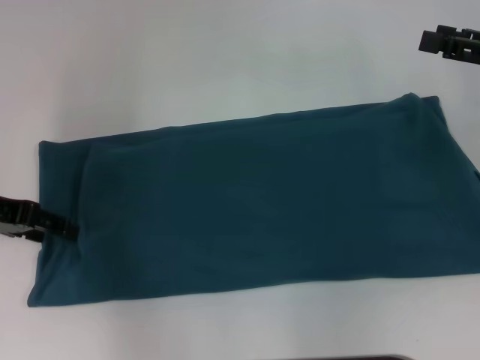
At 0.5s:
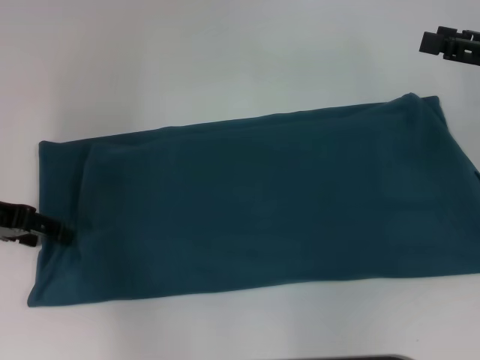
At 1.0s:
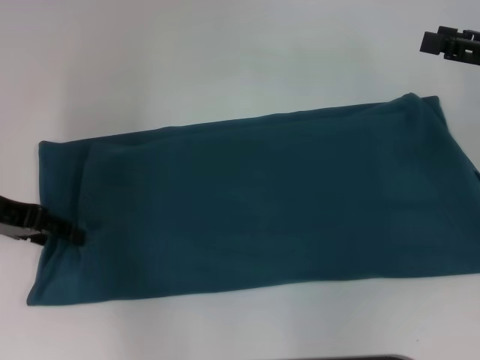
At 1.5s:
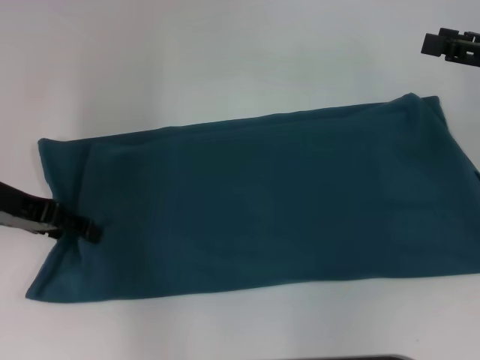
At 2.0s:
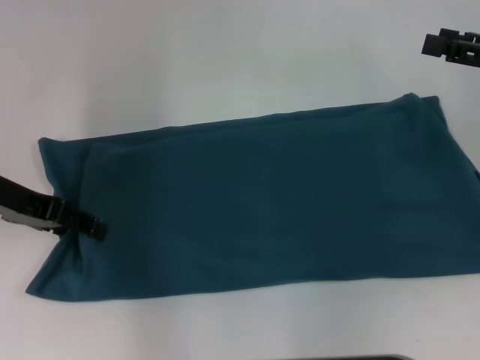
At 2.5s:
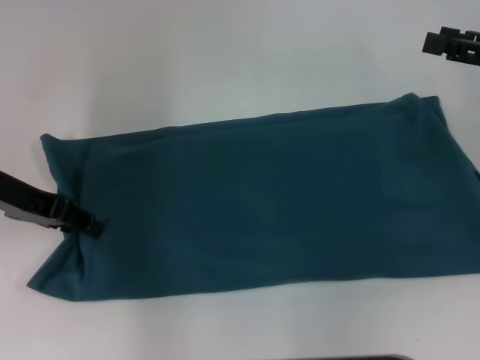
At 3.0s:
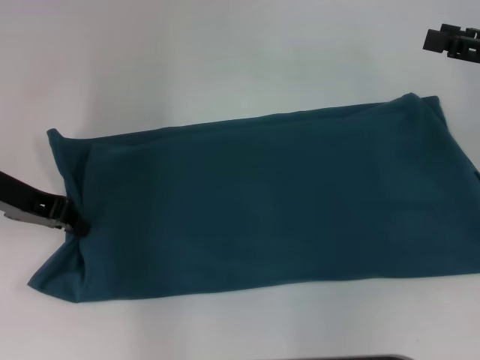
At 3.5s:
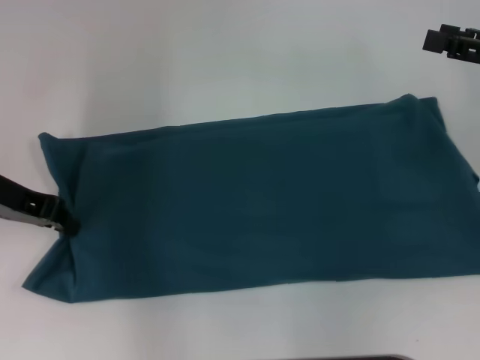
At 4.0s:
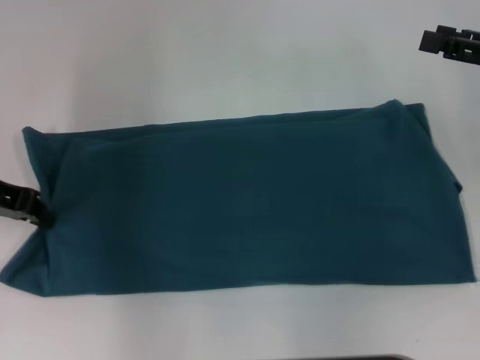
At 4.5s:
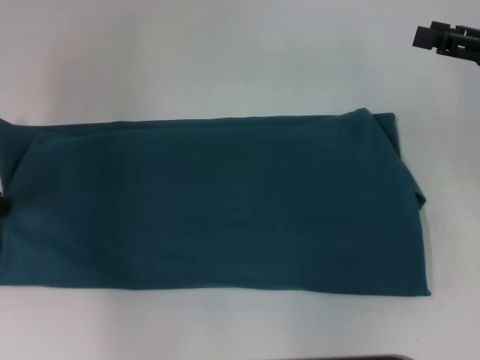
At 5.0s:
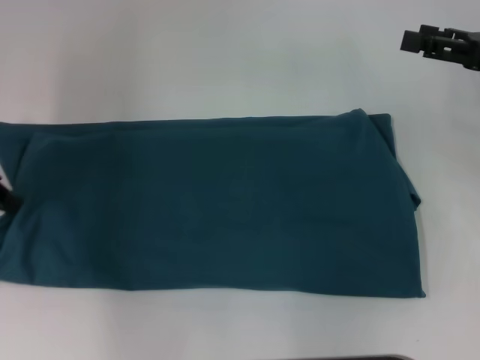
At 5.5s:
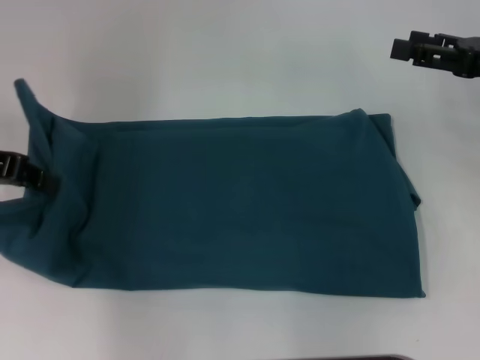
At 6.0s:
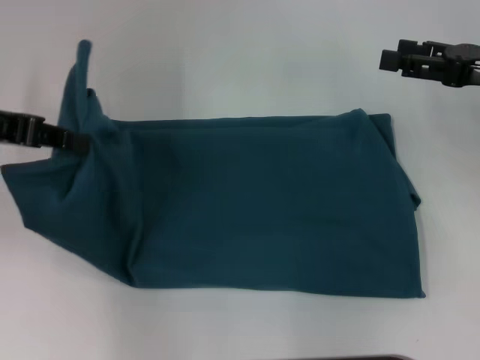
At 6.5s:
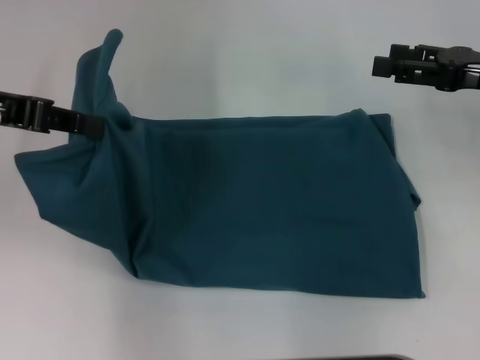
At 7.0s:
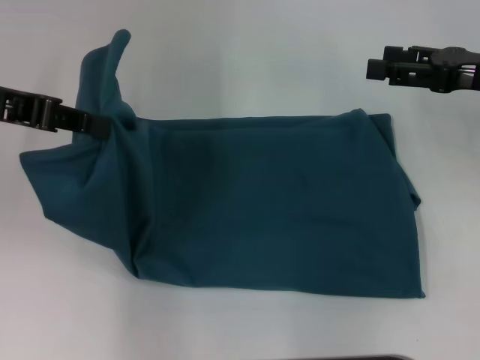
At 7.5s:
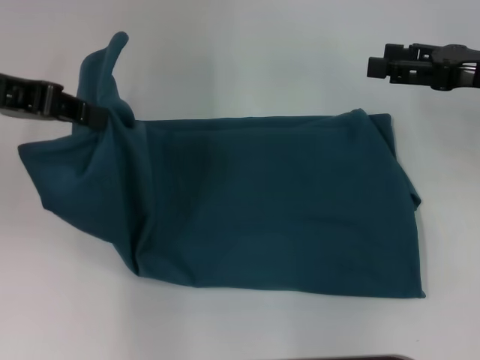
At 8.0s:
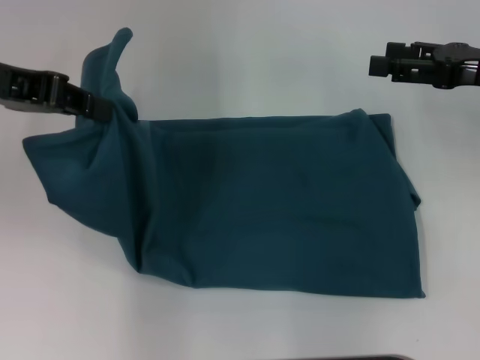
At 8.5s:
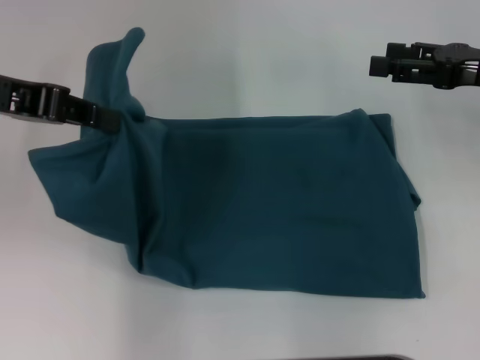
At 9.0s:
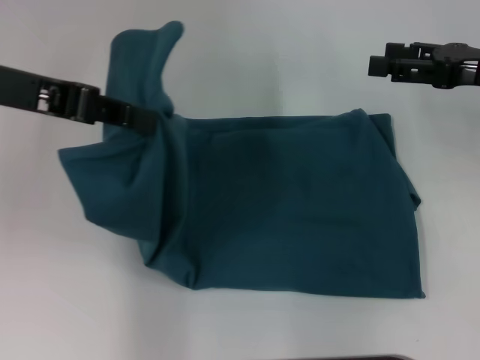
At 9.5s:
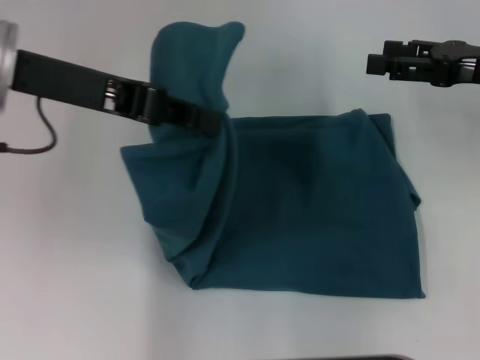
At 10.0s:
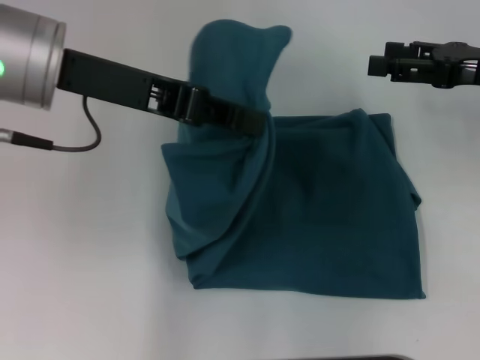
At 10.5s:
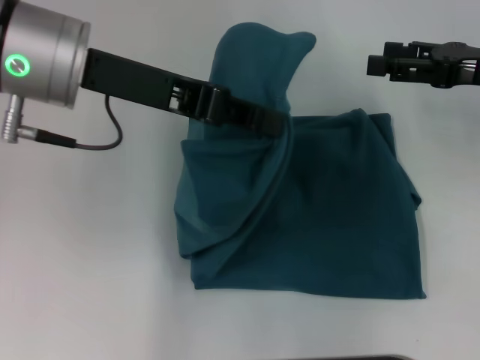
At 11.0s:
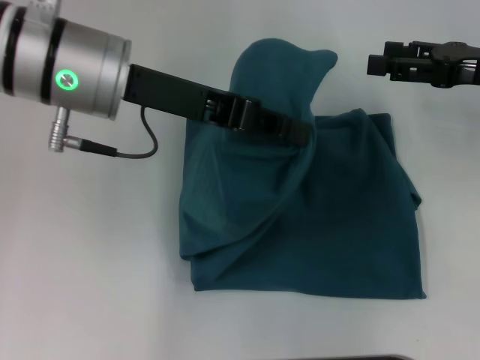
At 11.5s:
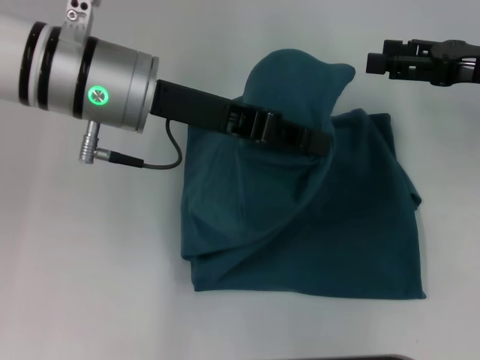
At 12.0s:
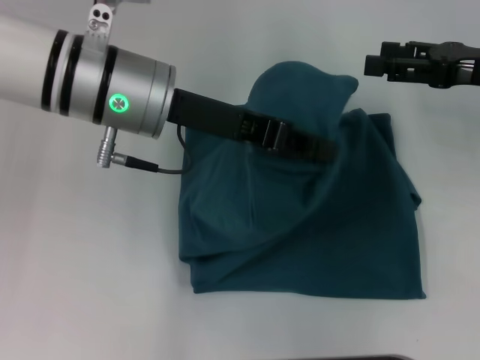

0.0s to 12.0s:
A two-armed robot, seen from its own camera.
0.0s to 2.0s: The grippers stay close to where they were, moving slightly.
2.0s to 4.0s: The left gripper closes its fingers.
4.0s to 6.0s: The left gripper goes approximately 5 cm upward.
6.0s to 8.0s: The grippers move only a little.
8.0s to 10.0s: The left gripper travels to the right by approximately 10 cm.
10.0s to 12.0s: The left gripper shifts roughly 10 cm to the right and downward.

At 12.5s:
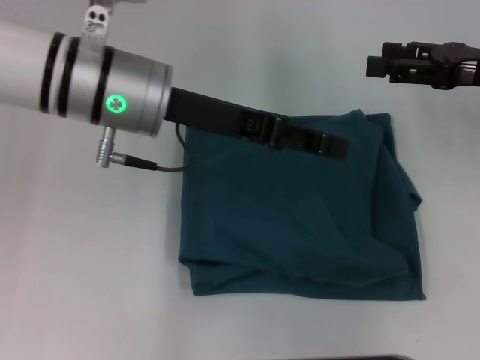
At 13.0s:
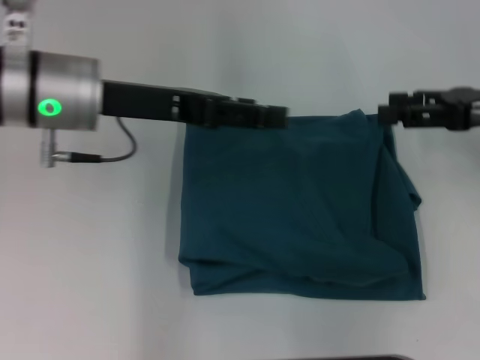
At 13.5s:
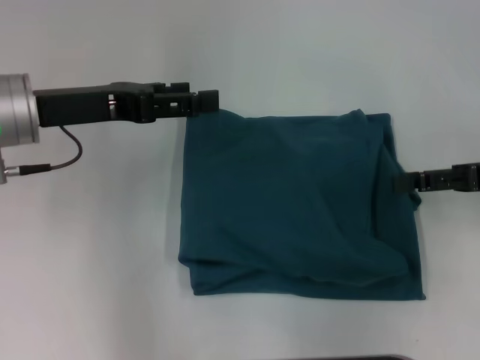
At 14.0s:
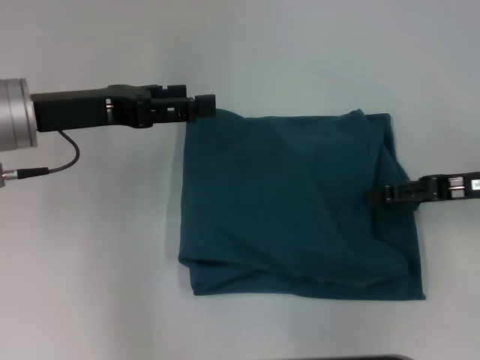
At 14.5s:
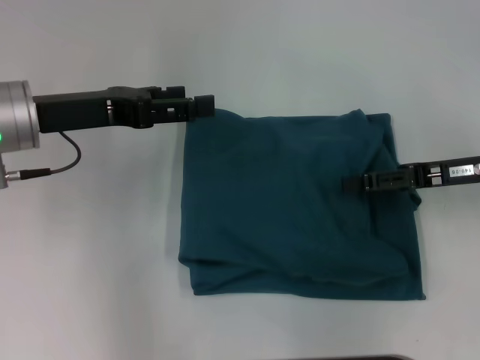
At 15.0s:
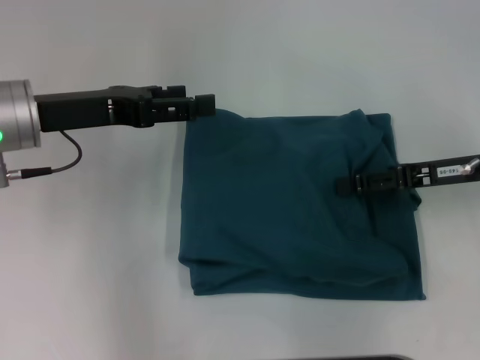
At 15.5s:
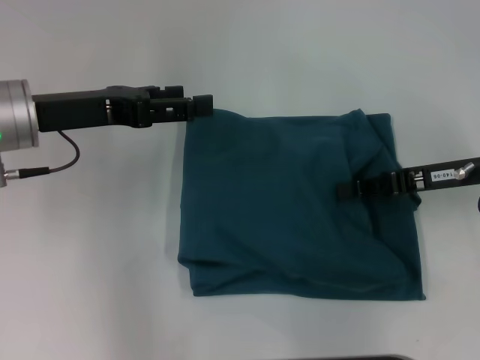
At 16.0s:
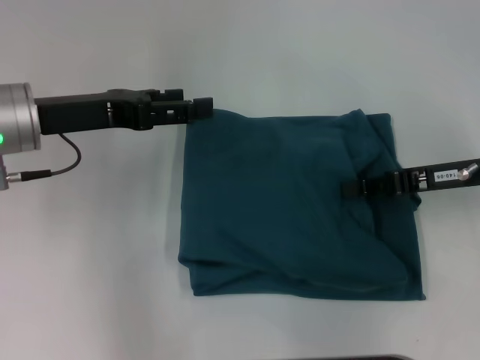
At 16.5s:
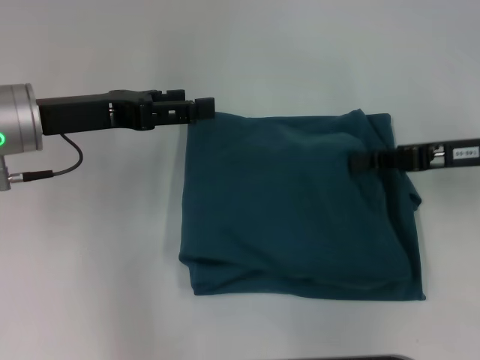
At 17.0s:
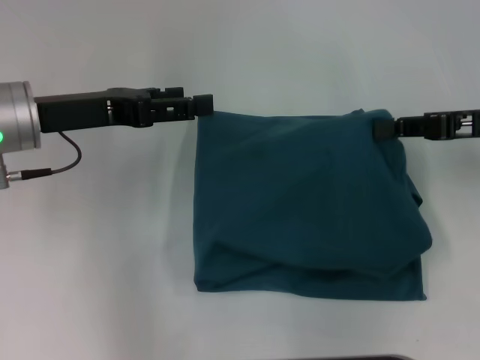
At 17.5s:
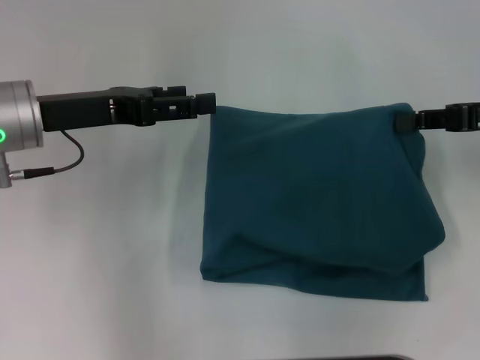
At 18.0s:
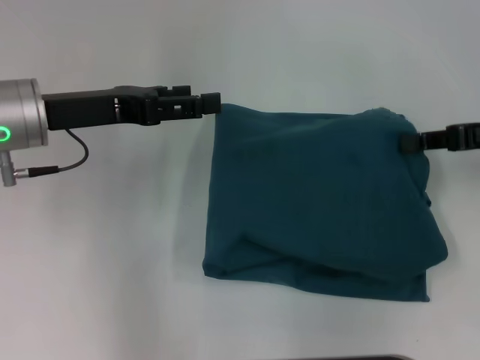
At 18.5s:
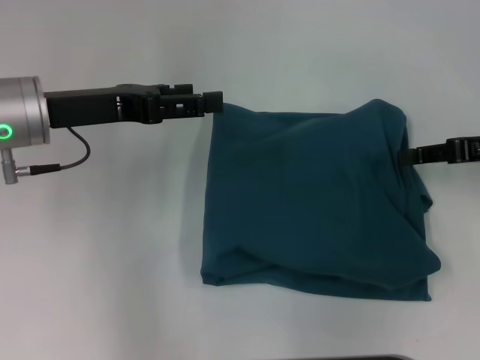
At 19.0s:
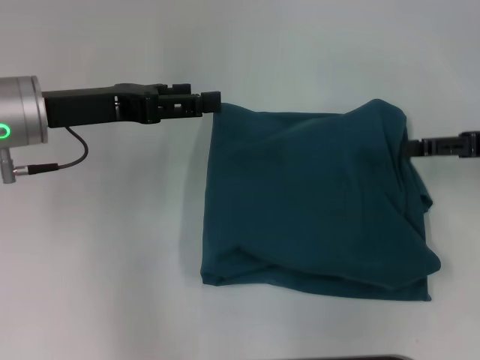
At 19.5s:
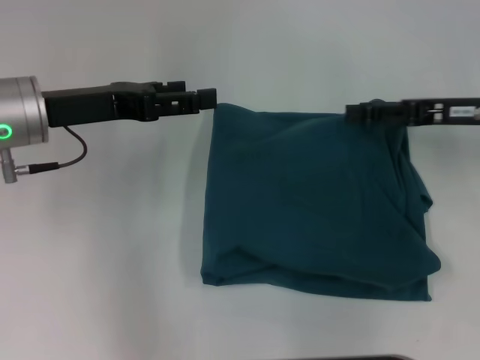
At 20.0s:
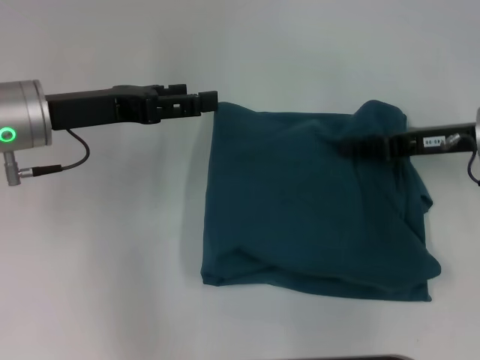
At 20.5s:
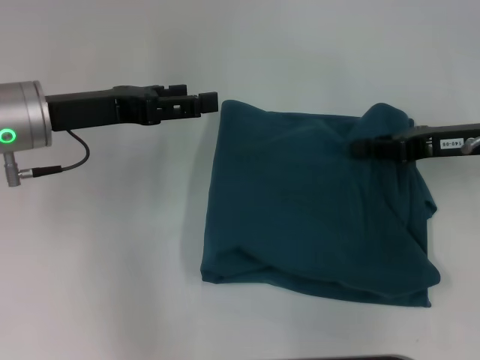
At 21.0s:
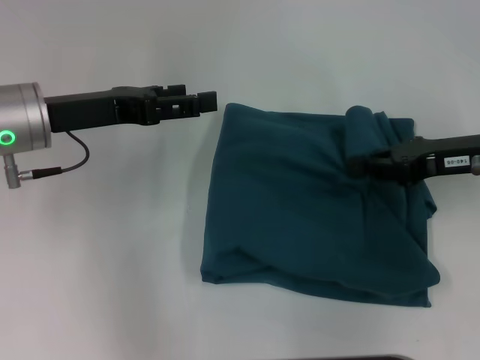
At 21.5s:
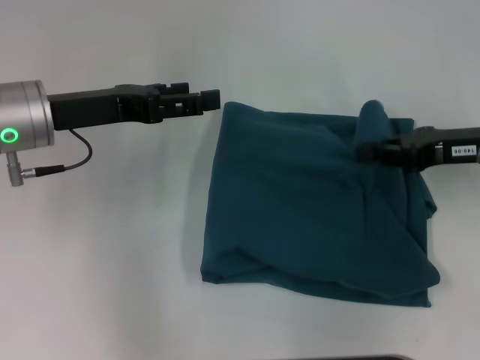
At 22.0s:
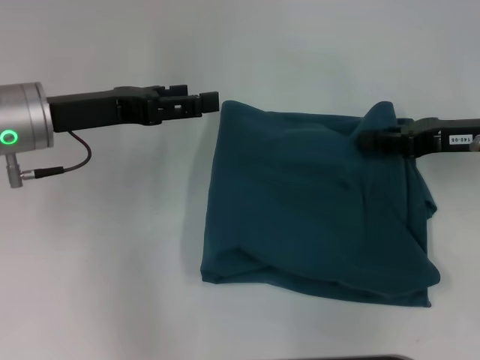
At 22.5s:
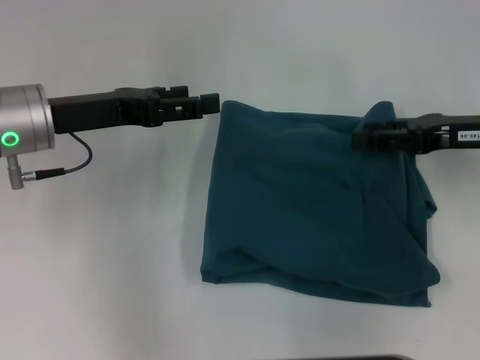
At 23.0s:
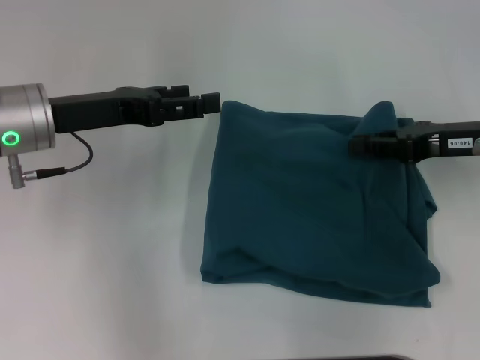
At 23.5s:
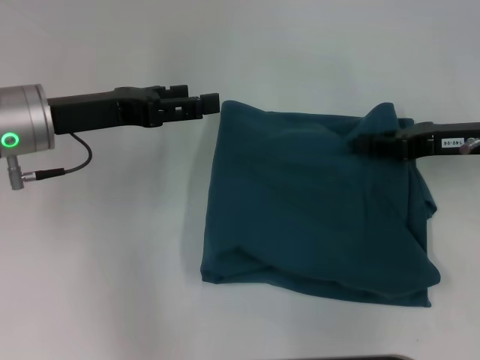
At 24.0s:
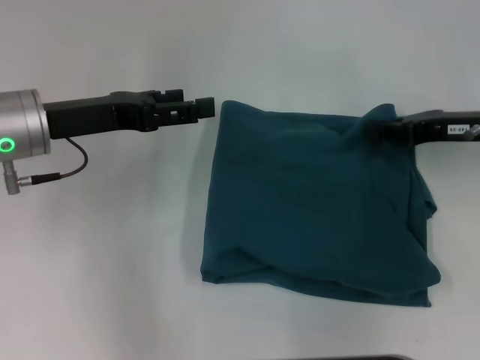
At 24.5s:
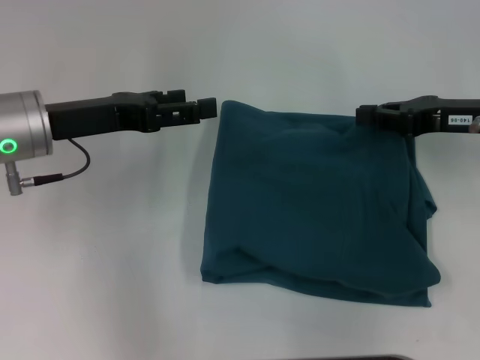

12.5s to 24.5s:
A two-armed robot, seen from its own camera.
12.5s to 14.5s: The right gripper moves downward, about 5 cm, while the left gripper heads to the left, covering roughly 10 cm, and opens its fingers.
14.5s to 16.5s: The right gripper closes up.
16.5s to 18.5s: The grippers make only small movements.
18.5s to 20.5s: The right gripper opens and closes again.
20.5s to 22.5s: The right gripper opens.
22.5s to 24.5s: The grippers move only a little.

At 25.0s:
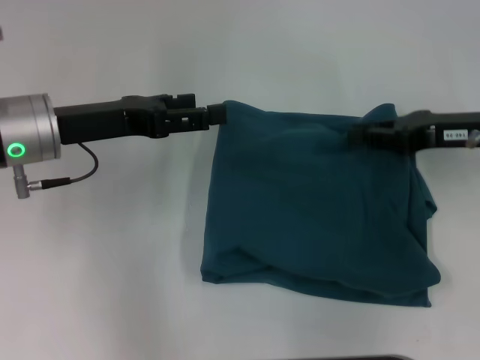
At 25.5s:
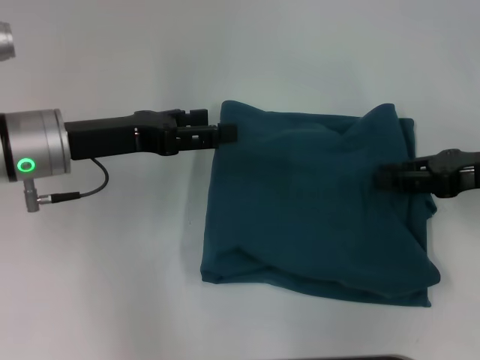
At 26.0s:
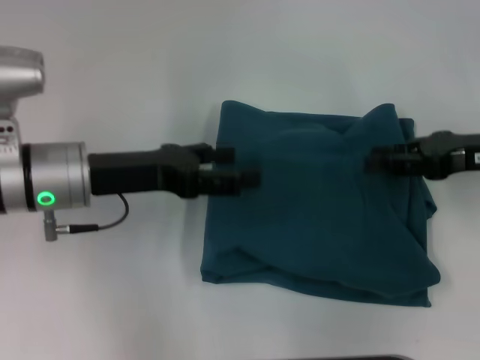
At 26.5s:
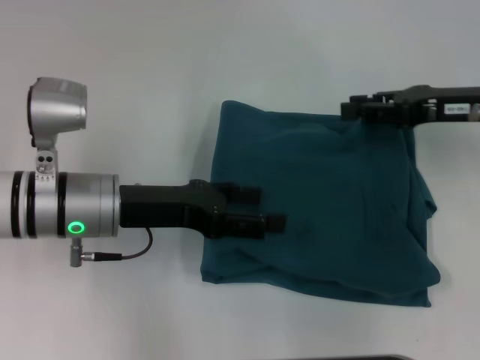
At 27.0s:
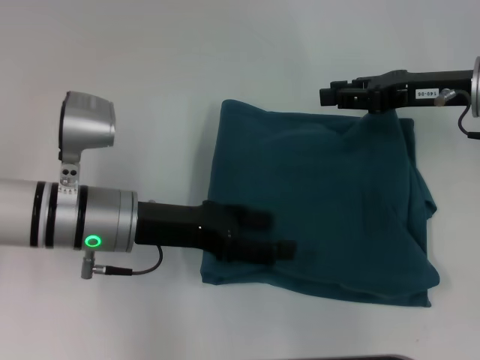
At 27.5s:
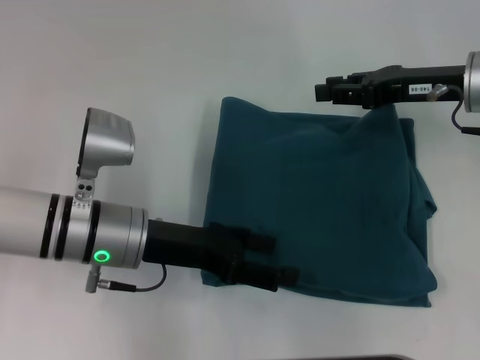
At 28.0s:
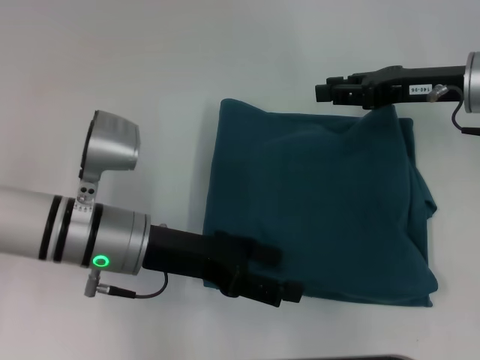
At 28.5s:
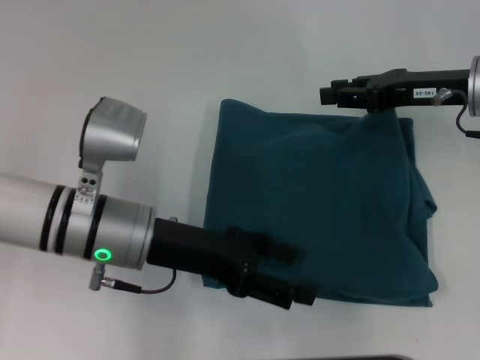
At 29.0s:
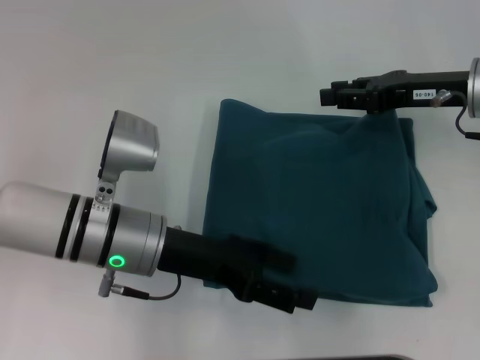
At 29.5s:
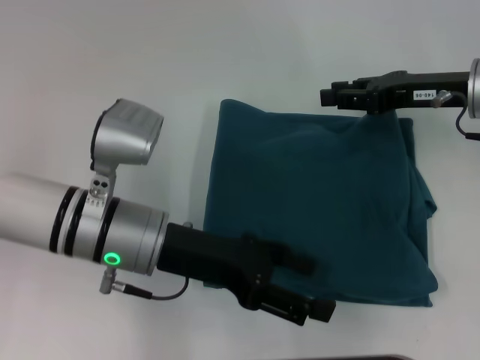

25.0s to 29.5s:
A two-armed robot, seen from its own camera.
25.0s to 27.0s: The left gripper heads to the right and downward, covering some 10 cm.
27.0s to 29.5s: There are only small adjustments of the grippers.
